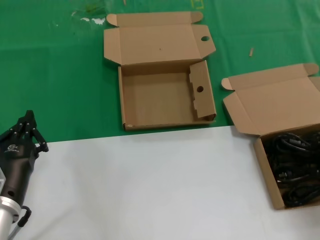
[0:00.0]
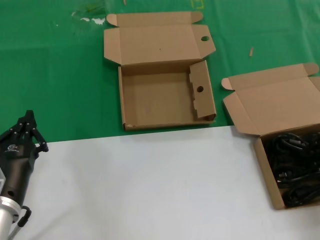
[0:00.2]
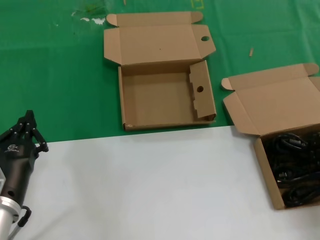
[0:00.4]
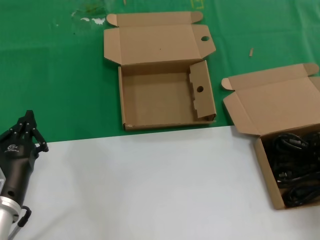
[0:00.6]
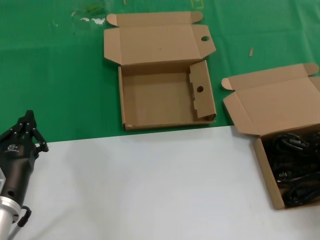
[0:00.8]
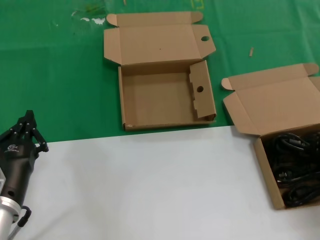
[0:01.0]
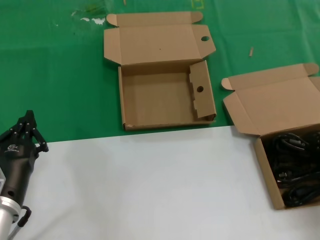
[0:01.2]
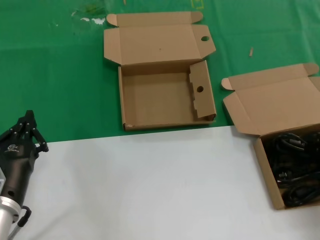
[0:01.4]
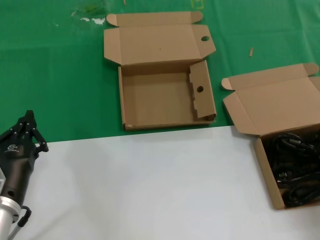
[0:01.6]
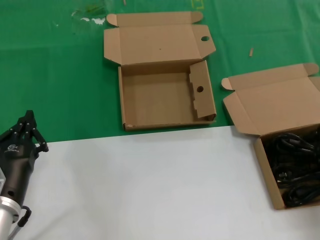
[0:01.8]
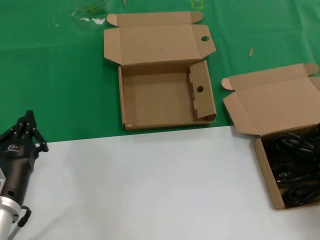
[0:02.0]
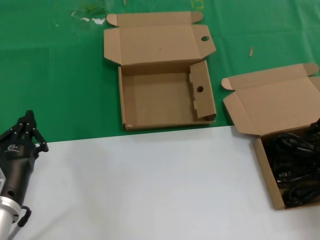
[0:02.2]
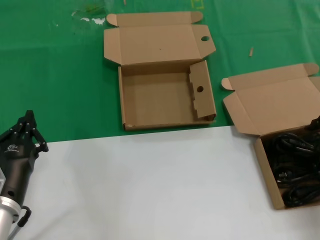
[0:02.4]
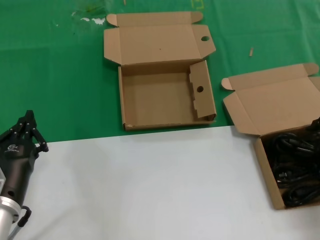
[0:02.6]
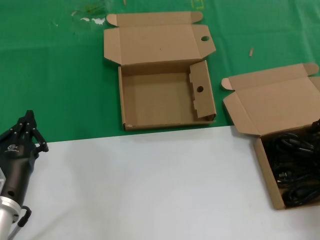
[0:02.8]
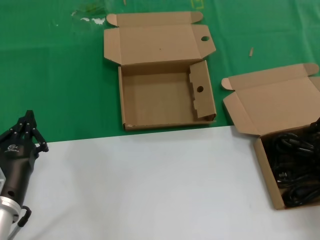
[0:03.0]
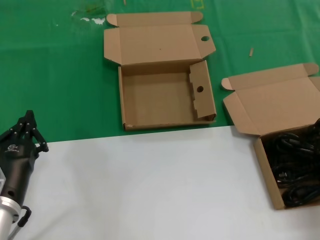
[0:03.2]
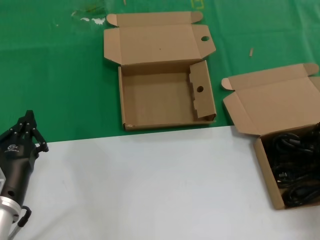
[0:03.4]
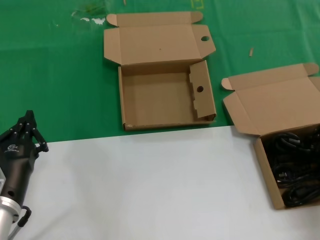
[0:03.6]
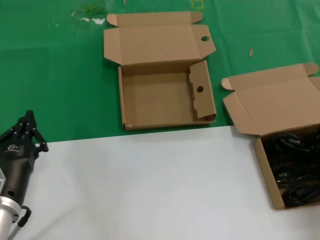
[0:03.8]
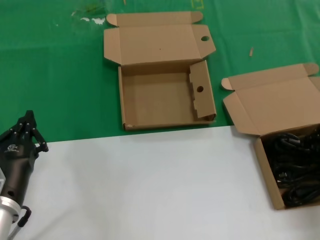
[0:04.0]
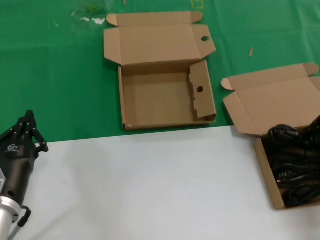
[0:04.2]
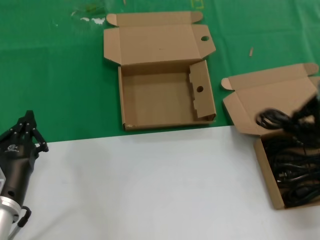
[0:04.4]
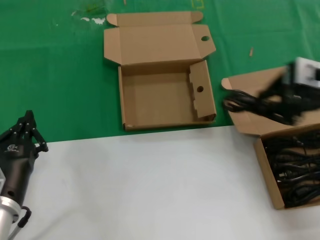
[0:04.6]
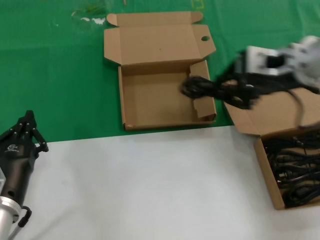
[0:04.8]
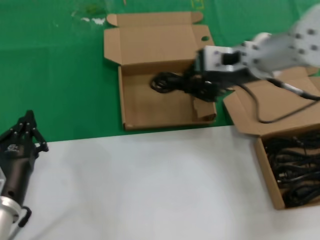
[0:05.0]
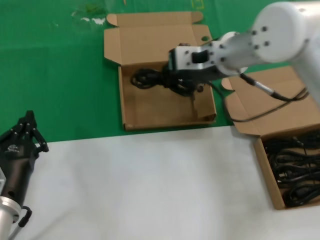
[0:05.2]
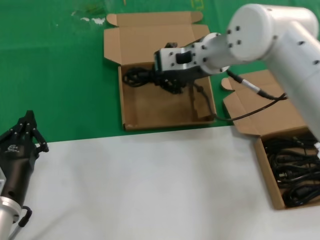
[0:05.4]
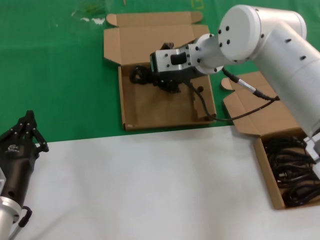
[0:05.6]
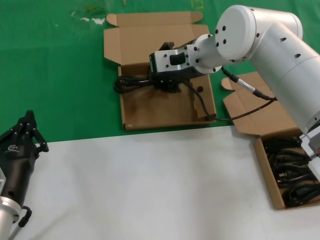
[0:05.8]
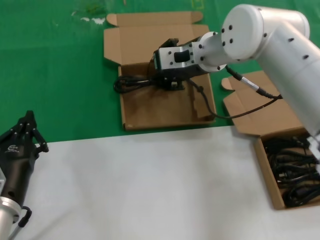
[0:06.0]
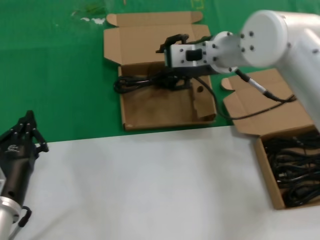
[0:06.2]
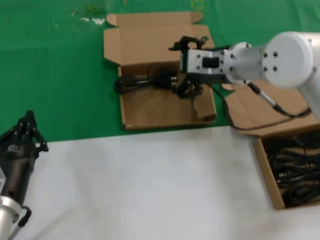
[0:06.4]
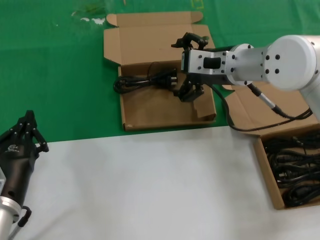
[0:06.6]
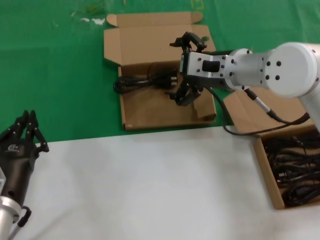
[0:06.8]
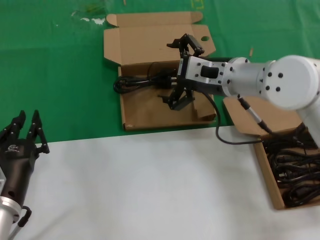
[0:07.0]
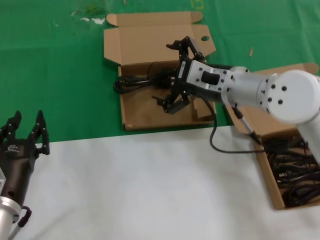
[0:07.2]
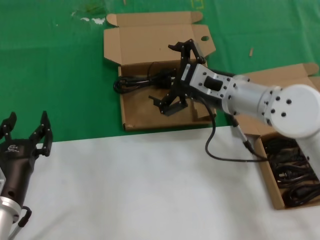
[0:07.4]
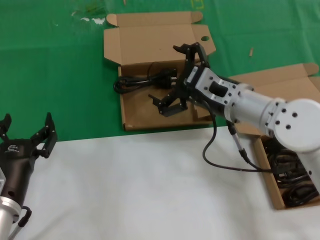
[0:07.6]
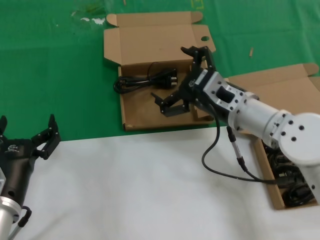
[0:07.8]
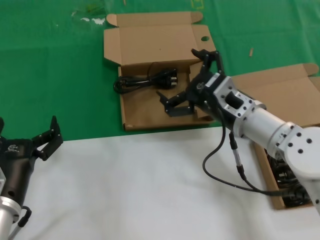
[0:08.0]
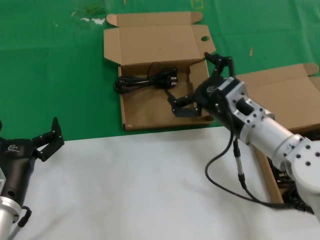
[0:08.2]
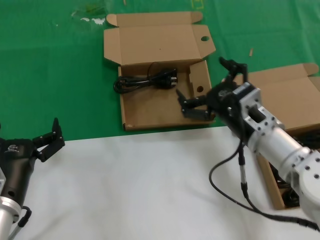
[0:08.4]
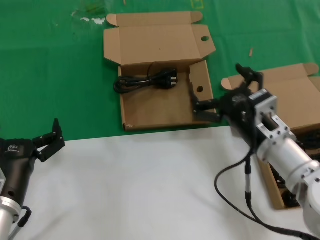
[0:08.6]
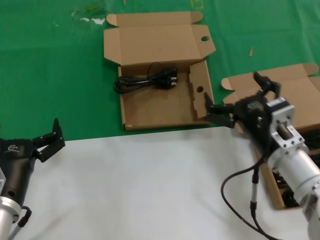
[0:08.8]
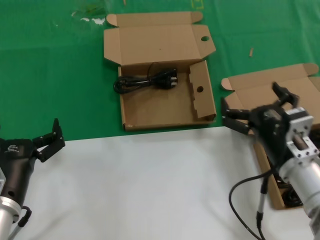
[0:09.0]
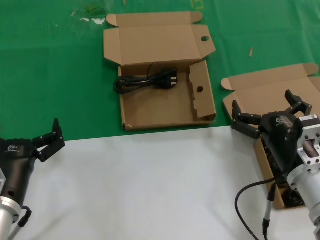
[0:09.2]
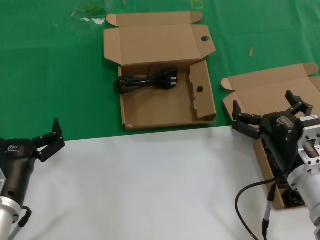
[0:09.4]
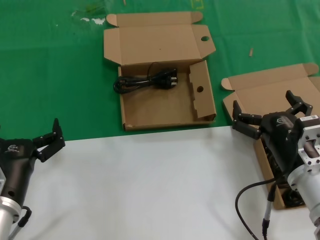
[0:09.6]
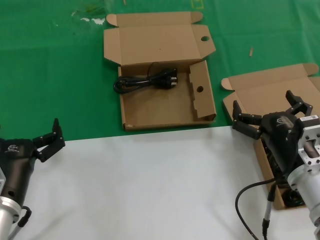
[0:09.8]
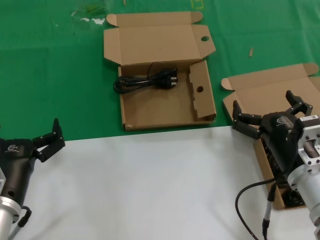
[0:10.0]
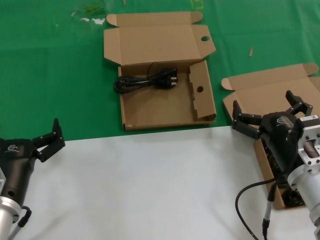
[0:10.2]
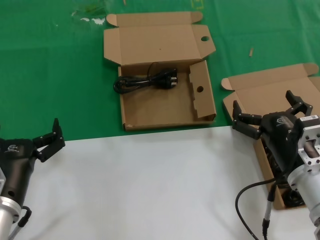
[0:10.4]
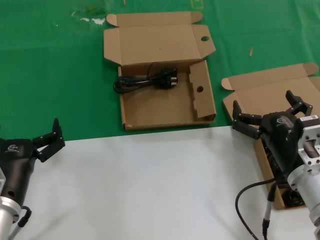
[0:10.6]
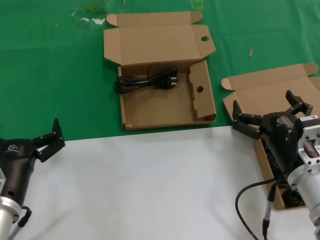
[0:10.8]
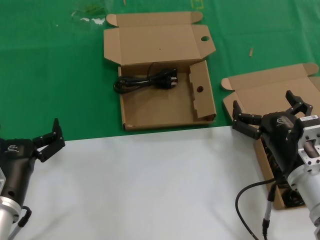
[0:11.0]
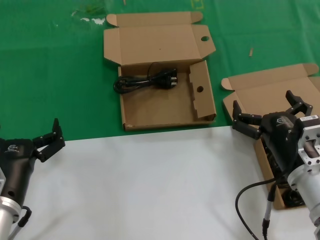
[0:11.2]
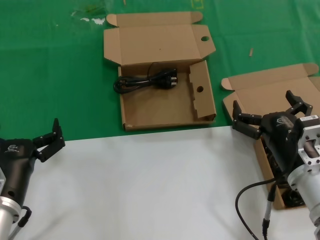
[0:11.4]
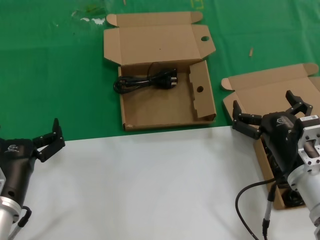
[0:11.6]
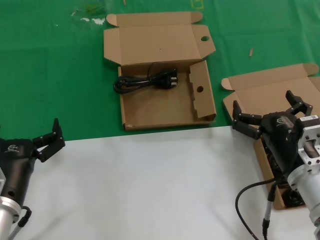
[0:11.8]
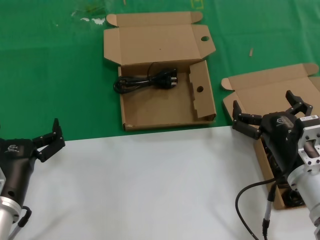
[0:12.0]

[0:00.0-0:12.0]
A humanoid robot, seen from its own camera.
Task of the whole recording: take the parts from the box containing them and put them into an empty box.
Step, 0:03.8 to 0:06.2: Place the data cable in the another box.
0:03.0 to 0:04.4: The right hand goes some 5 cm upward.
0:04.4 to 0:06.0: The right hand travels to the left and forward by some 30 cm.
0:06.0 to 0:07.6: The right hand shifts roughly 15 cm backward, downward and to the right.
0:07.6 to 0:09.0: The right hand is displaced backward, downward and to the right by about 15 cm.
0:09.0 to 0:10.4: The hands make only small movements.
0:10.4 to 0:12.0: Both hands stay put.

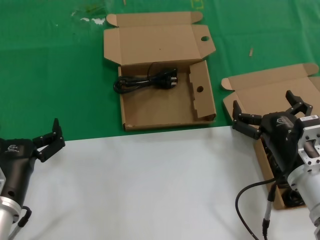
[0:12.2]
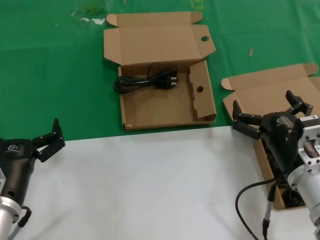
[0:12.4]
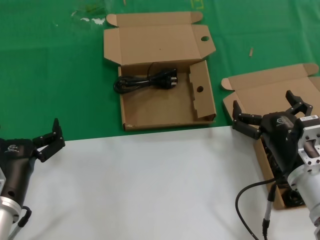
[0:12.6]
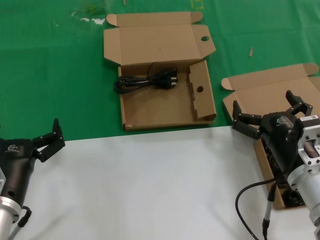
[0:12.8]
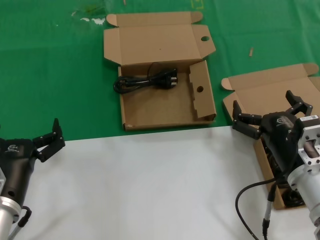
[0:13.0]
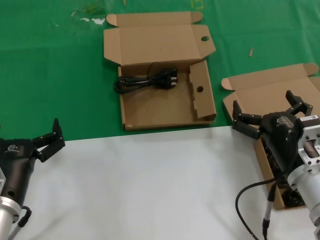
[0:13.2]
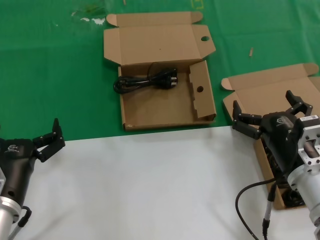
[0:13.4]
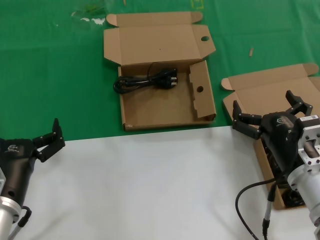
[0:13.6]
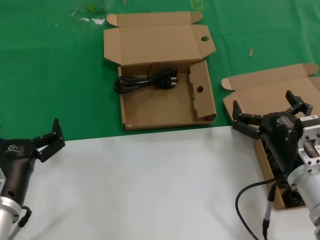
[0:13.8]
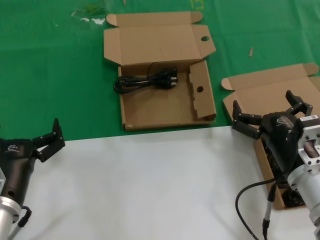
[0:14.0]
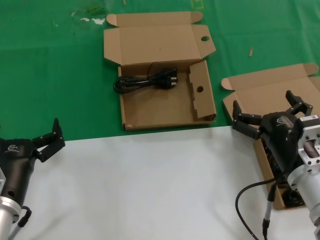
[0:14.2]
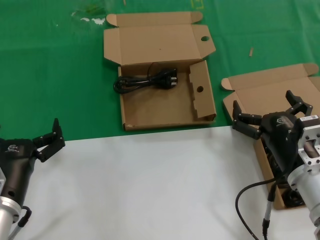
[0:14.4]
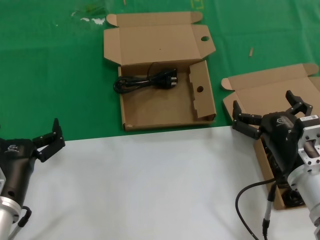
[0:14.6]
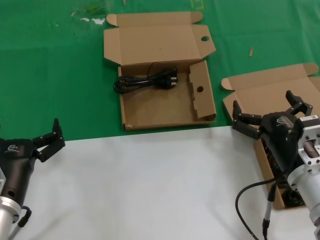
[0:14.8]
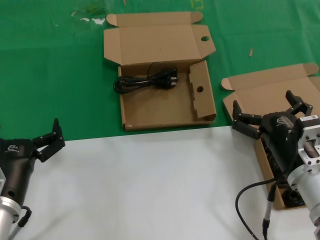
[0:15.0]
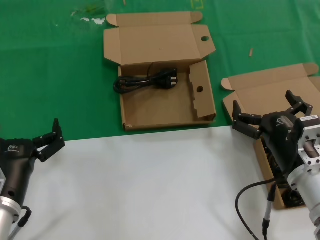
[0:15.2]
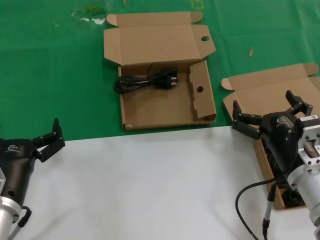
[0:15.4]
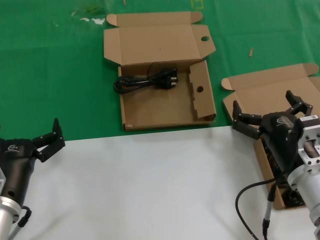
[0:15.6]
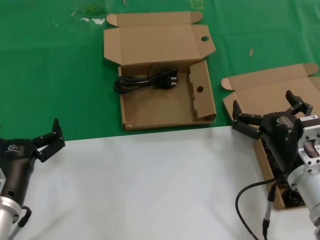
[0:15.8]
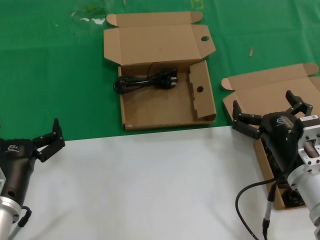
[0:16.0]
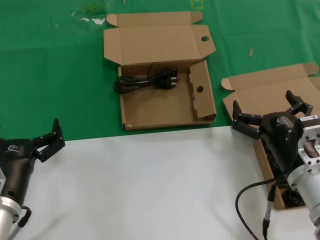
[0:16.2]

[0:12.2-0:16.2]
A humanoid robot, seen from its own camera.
Task of the whole recording: take the parts from the box containing them and put them into an empty box.
0:12.2 to 0:16.2: The two hands keep their place.
